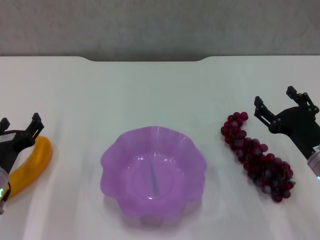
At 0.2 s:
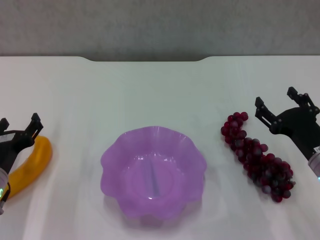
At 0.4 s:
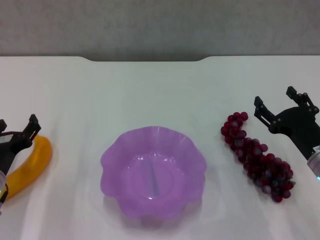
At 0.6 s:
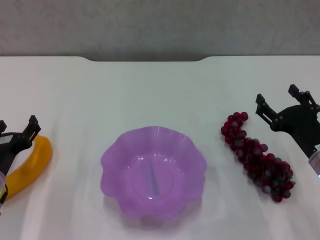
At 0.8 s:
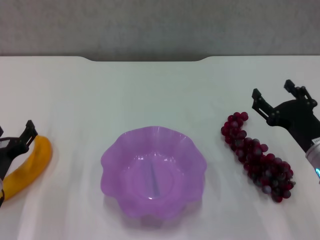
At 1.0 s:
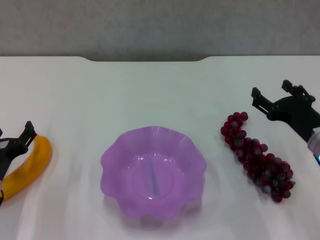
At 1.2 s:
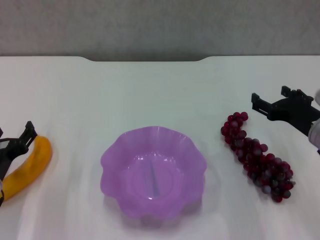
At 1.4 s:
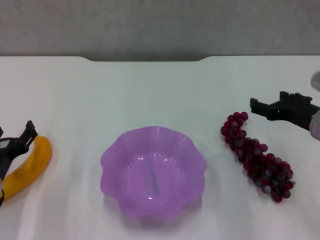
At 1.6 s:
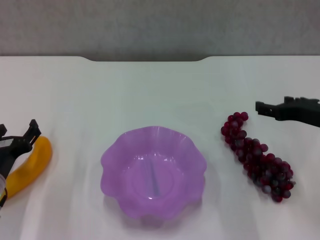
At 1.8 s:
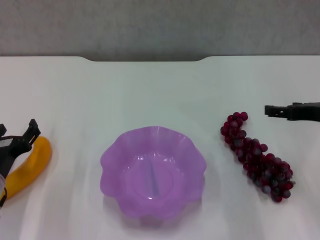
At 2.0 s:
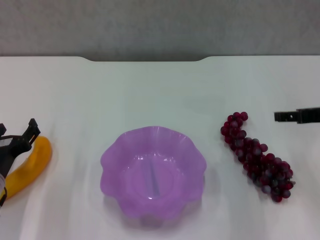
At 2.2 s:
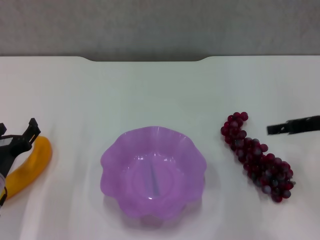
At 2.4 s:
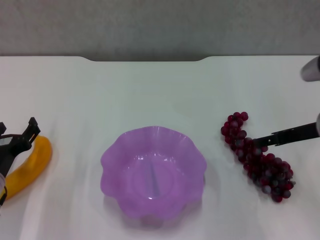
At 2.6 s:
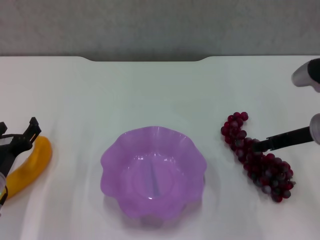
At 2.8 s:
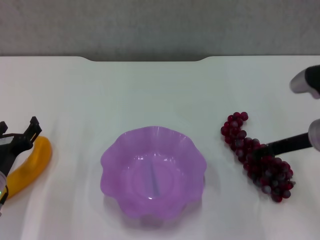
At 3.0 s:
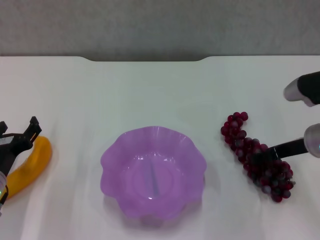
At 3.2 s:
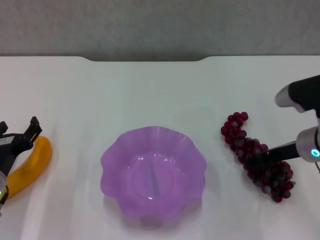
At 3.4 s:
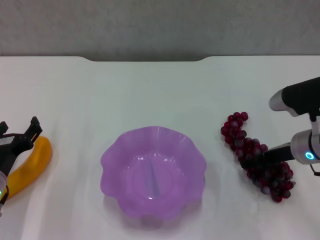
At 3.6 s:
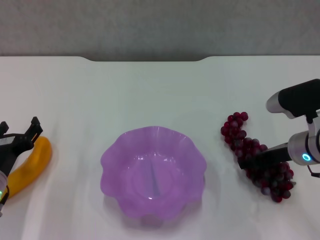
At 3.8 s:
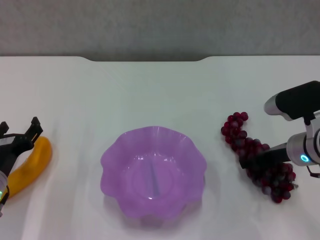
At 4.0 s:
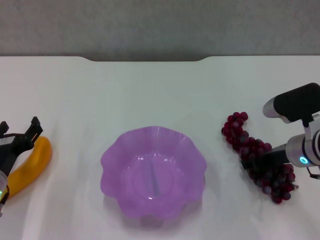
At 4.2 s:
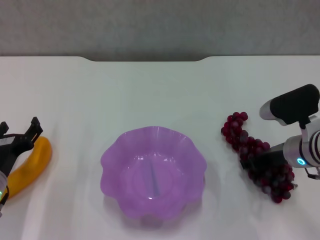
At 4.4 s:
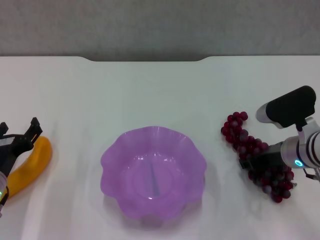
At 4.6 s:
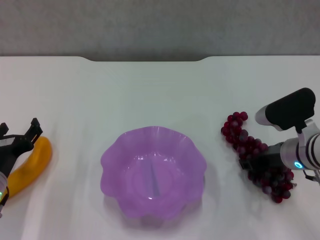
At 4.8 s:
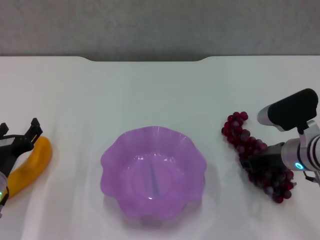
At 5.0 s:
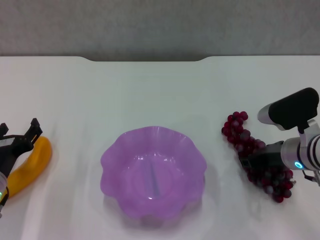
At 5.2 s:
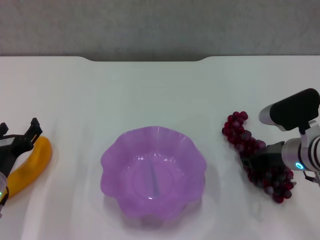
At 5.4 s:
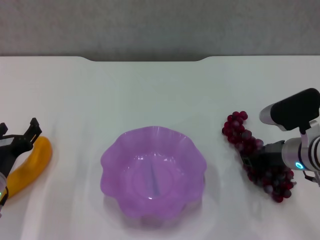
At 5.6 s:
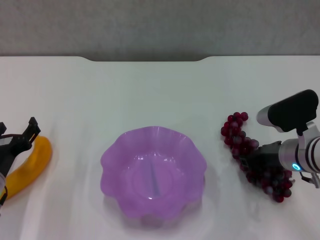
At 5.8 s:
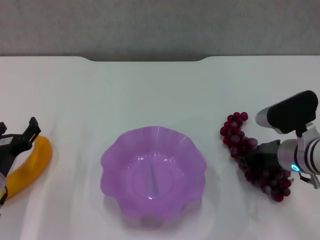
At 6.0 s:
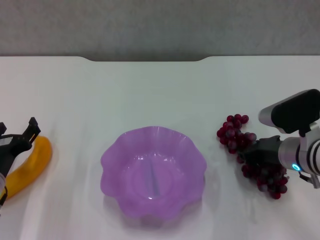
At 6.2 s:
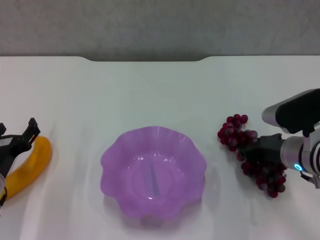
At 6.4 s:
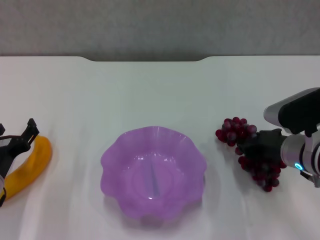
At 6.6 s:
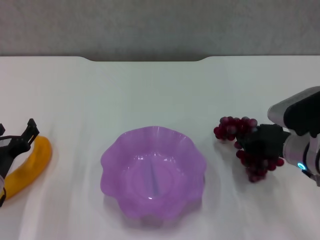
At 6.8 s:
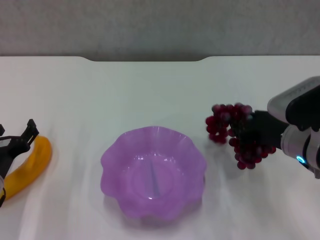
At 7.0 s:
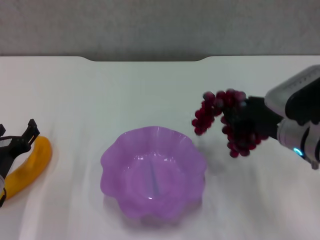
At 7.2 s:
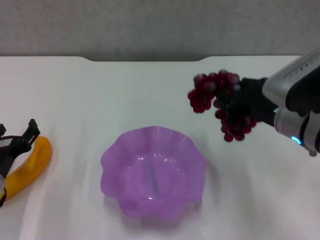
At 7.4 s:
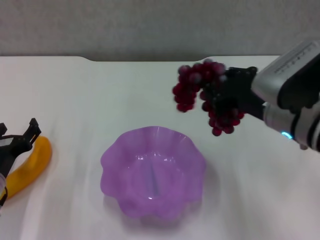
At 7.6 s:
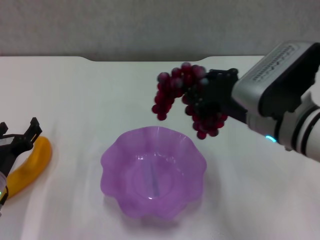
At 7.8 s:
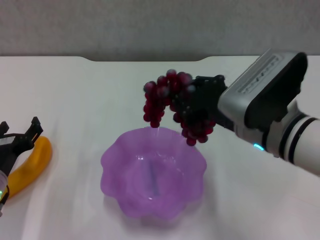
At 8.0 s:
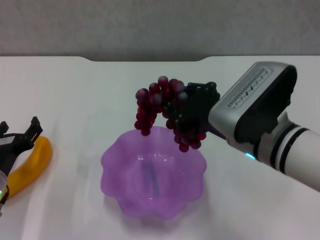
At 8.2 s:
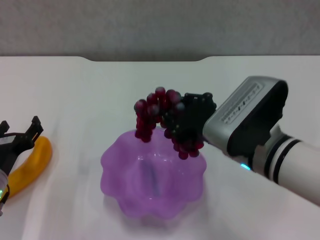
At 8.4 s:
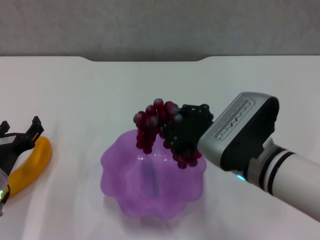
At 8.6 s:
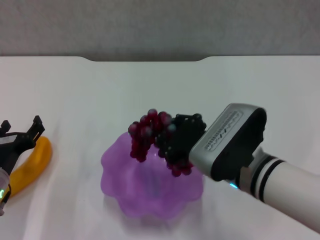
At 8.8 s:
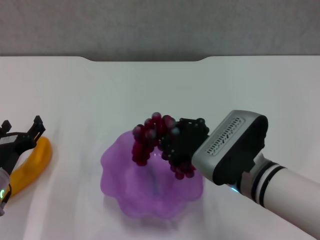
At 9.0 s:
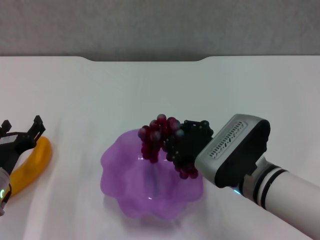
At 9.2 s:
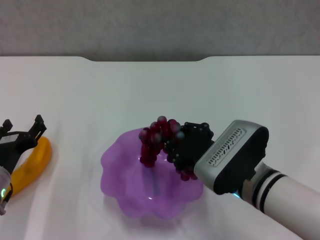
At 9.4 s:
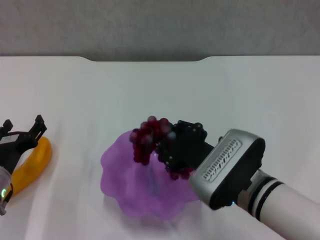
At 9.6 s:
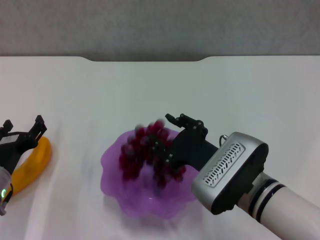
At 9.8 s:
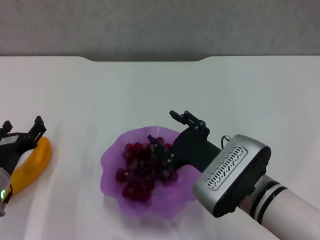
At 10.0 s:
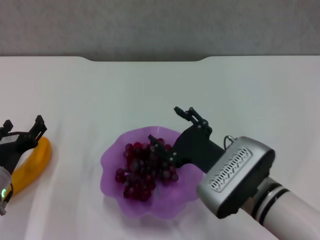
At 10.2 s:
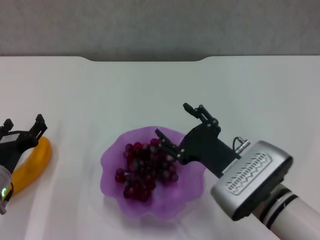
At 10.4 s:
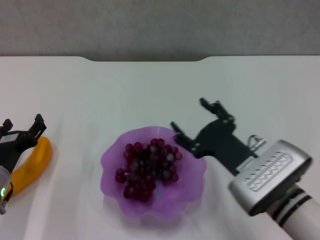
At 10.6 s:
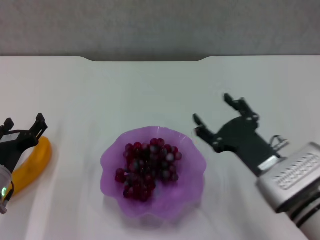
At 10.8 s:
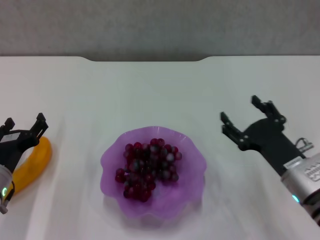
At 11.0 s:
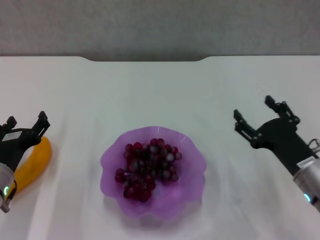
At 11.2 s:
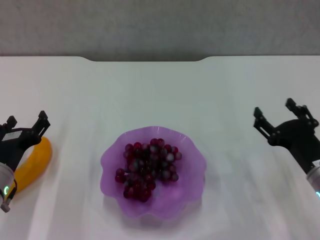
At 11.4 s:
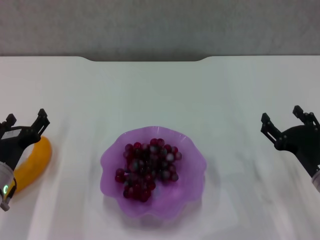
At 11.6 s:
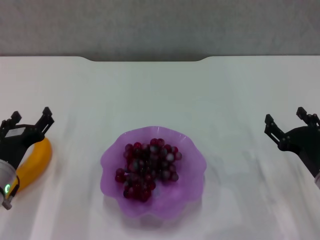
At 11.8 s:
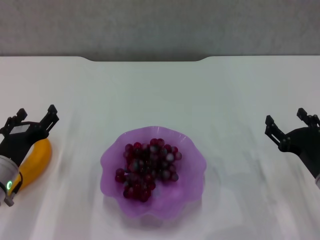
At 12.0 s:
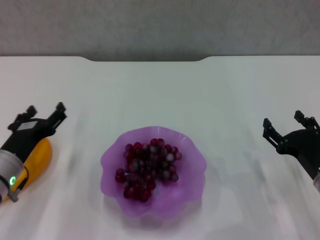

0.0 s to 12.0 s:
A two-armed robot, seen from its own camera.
Step, 0.0 to 5.6 s: Grasp the grape with right gripper.
Step, 5.8 to 10.0 s: Place the grape in the purple plate with right gripper.
0.0 to 1.6 s: The right gripper goes about 10 cm upward.
3.0 to 4.4 s: The right gripper closes its fingers.
4.4 to 6.0 s: The right gripper closes its fingers.
6.0 to 7.6 s: The right gripper moves upward and to the left, about 15 cm.
7.6 to 9.0 s: The right gripper moves downward, roughly 10 cm.
9.0 to 10.4 s: The right gripper opens.
10.4 to 12.0 s: The right gripper shifts roughly 10 cm to the right.

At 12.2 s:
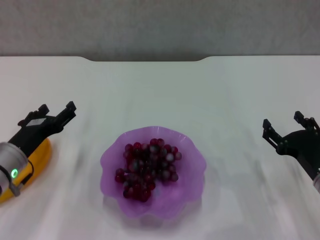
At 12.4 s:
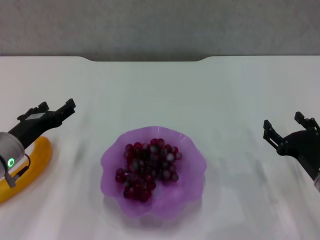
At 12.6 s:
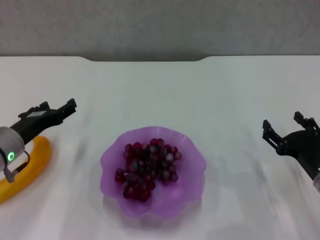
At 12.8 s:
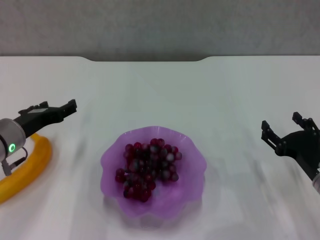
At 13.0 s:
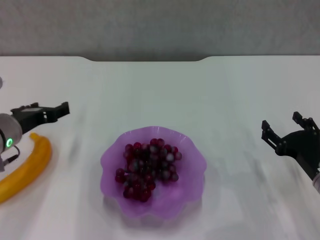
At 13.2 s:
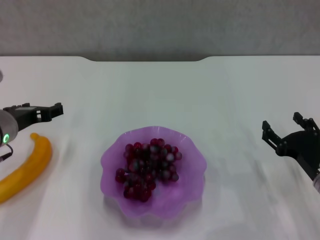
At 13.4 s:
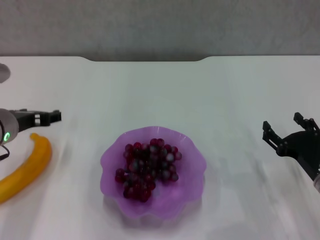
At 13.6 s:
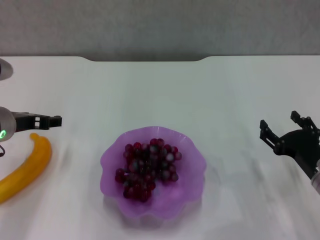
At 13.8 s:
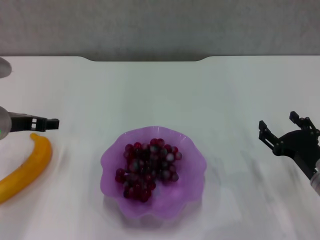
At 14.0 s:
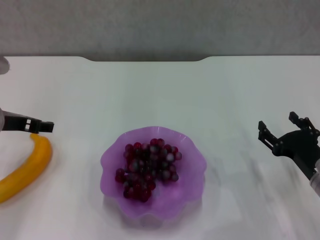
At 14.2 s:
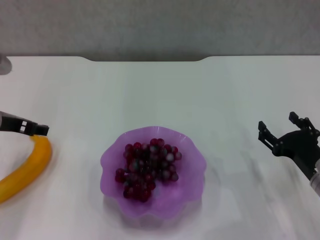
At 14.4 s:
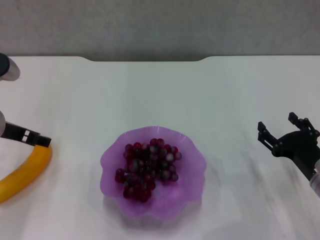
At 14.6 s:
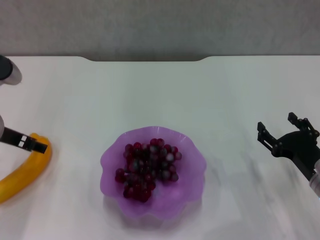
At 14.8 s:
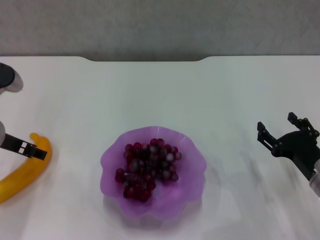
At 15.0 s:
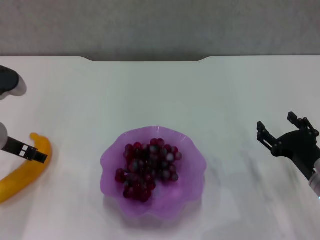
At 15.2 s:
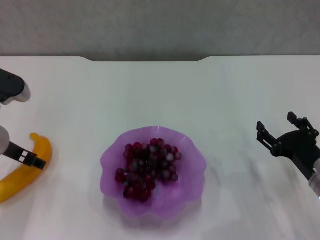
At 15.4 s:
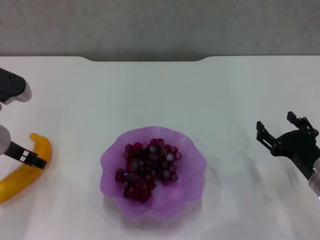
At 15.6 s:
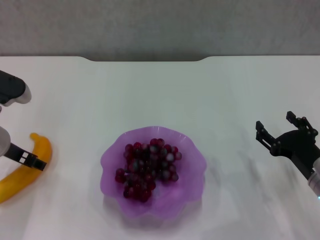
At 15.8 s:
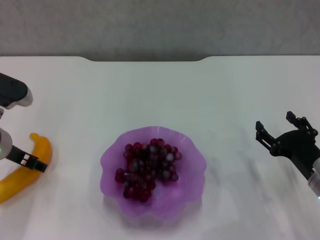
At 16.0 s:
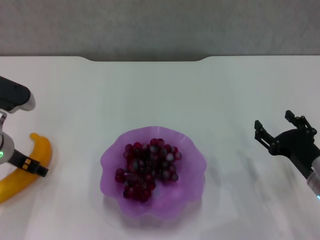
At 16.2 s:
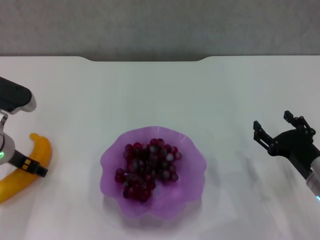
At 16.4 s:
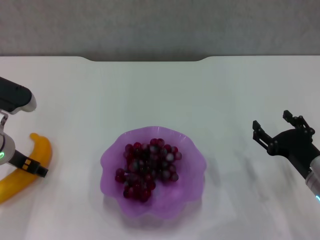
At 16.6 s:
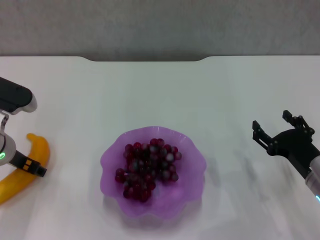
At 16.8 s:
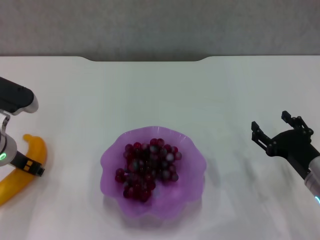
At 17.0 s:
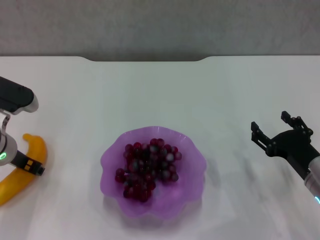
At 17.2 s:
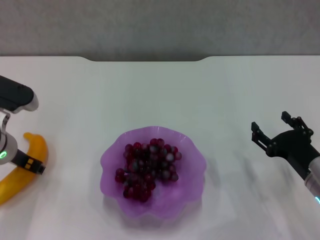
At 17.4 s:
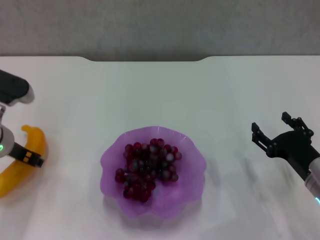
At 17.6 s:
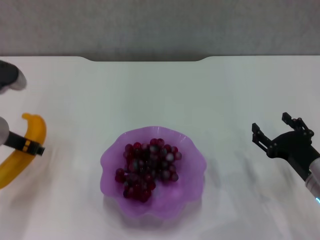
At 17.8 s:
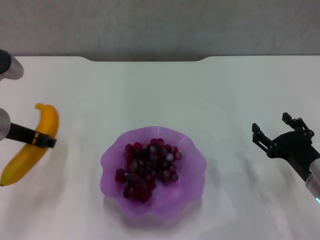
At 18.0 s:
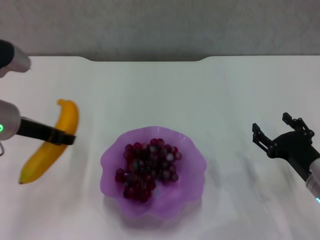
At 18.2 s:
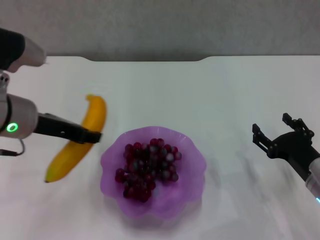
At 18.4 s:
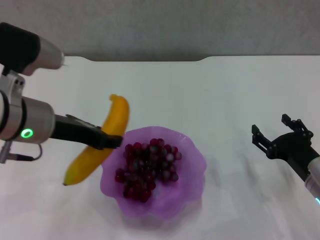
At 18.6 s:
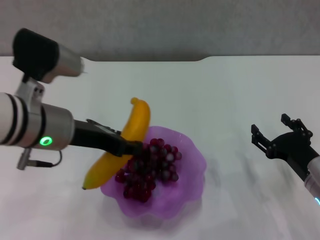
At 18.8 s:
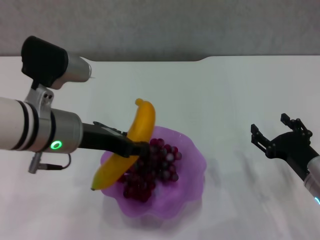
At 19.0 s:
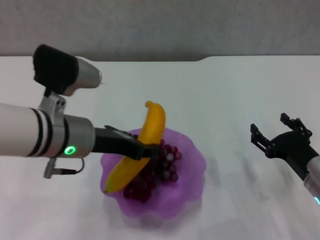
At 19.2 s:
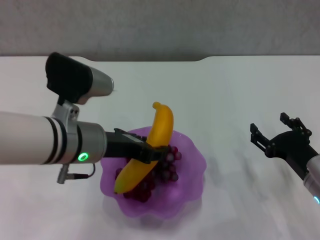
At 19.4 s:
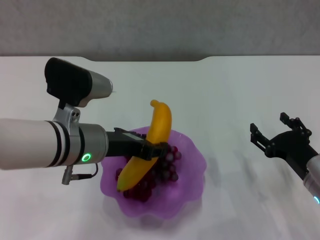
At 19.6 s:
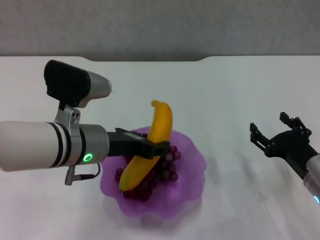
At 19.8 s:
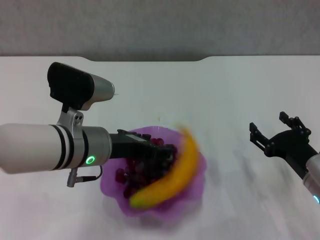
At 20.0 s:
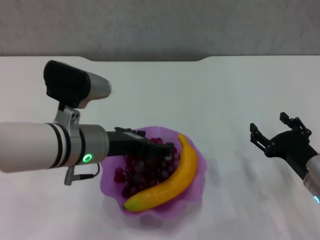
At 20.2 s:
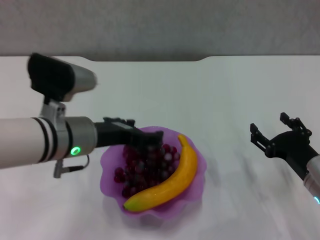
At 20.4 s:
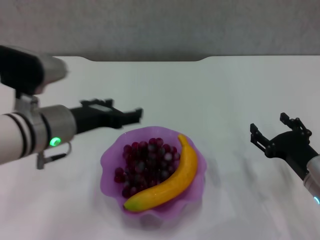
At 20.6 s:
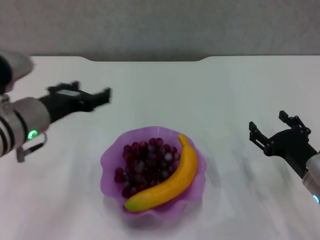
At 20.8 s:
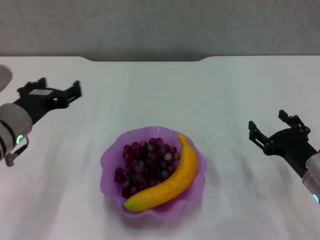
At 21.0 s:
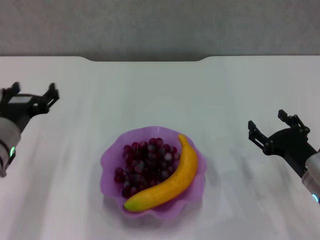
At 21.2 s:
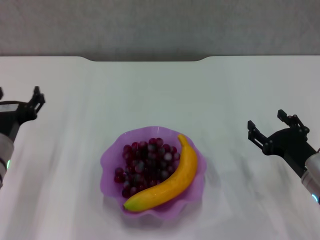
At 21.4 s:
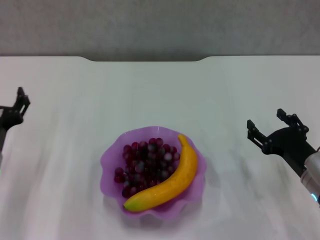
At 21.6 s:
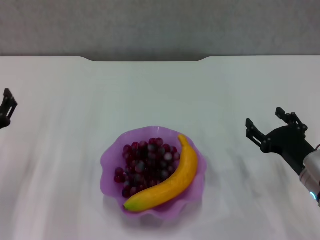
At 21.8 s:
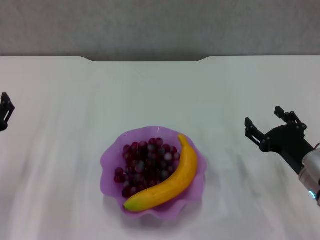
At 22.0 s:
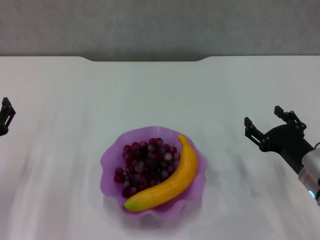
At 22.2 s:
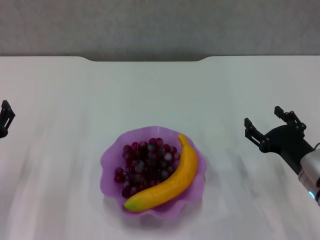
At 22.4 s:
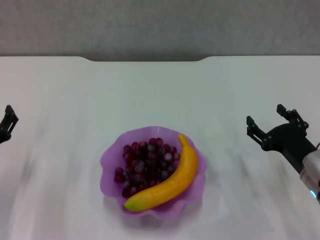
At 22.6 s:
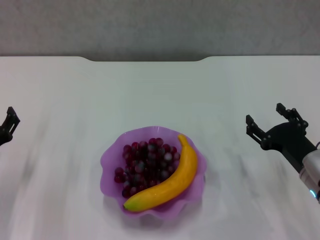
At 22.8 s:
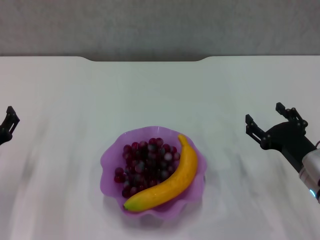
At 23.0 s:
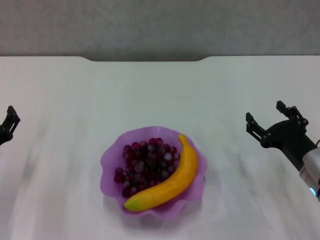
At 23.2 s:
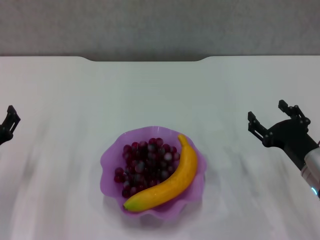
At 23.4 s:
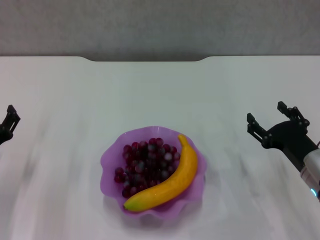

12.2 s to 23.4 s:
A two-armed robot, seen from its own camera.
Step, 12.2 to 17.0 s: Grasp the banana with left gripper.
Step, 17.2 to 19.8 s: Place the banana in the purple plate with left gripper.
12.2 to 13.8 s: The left gripper heads upward, covering some 10 cm.
15.4 to 17.0 s: The left gripper closes.
17.0 to 18.6 s: The left gripper is displaced to the right, upward and backward by approximately 15 cm.
18.6 to 20.2 s: The left gripper opens its fingers.
20.2 to 21.8 s: The left gripper goes roughly 20 cm to the left and downward.
21.8 to 23.4 s: The grippers move only a little.
